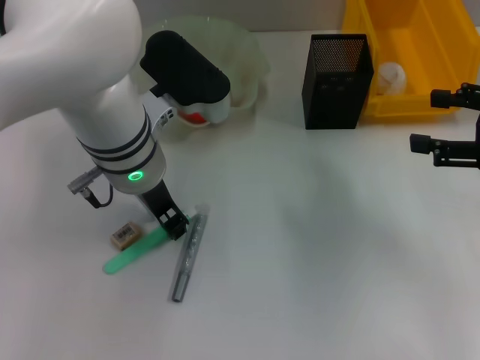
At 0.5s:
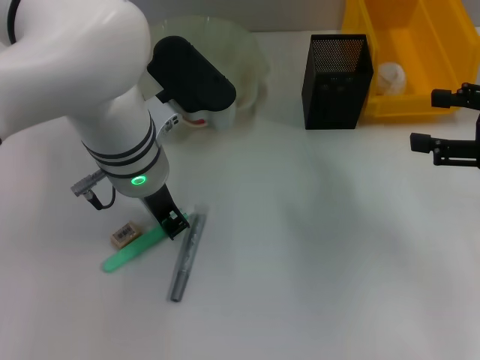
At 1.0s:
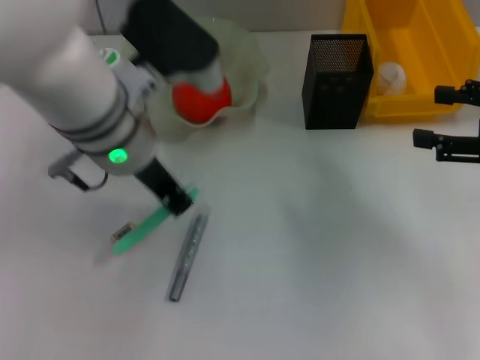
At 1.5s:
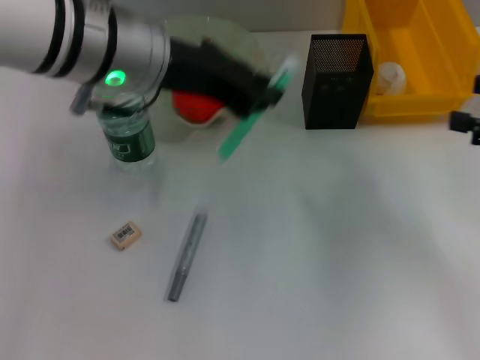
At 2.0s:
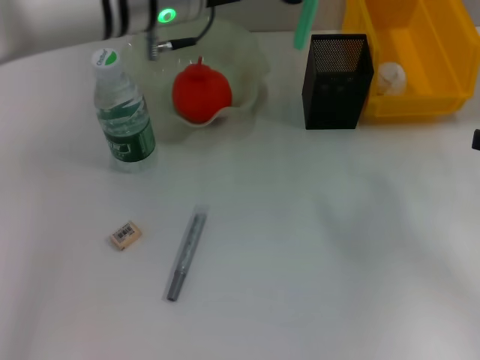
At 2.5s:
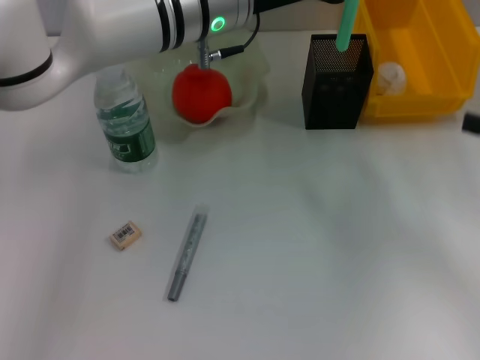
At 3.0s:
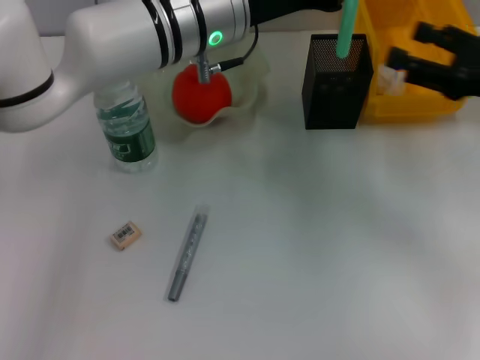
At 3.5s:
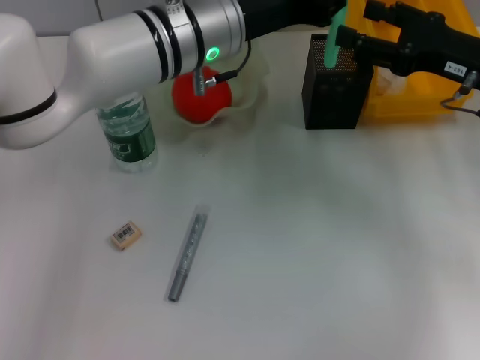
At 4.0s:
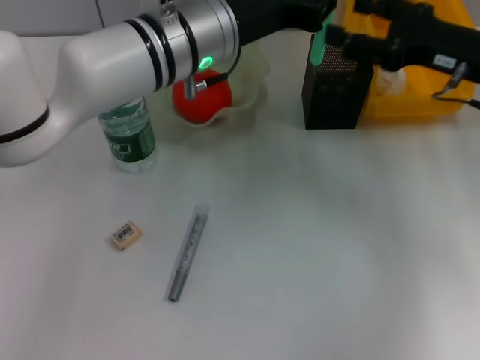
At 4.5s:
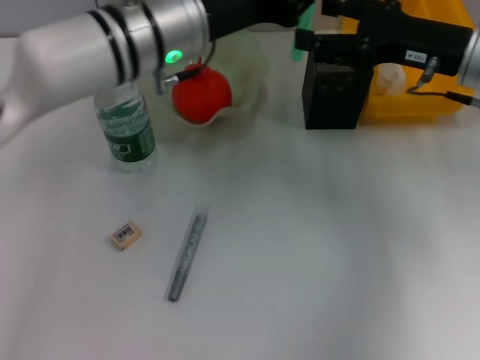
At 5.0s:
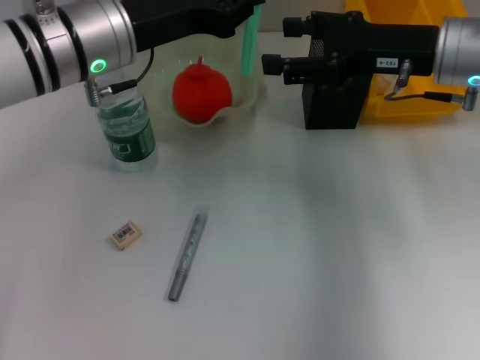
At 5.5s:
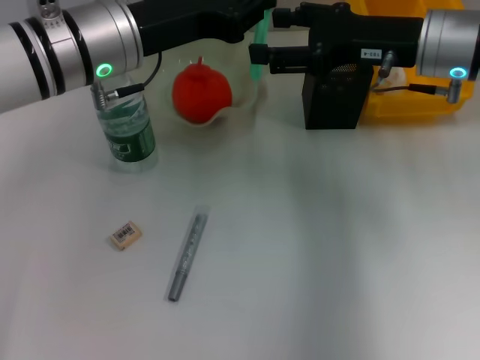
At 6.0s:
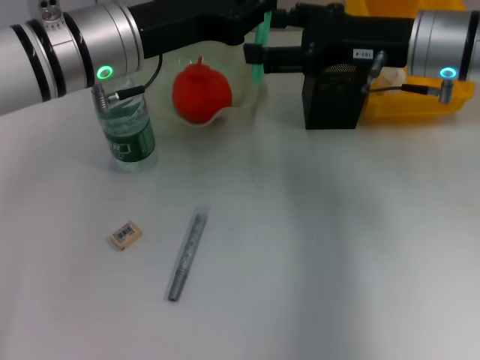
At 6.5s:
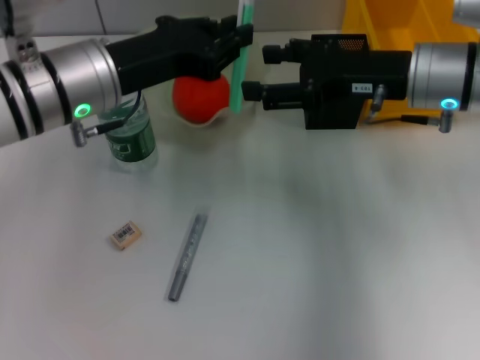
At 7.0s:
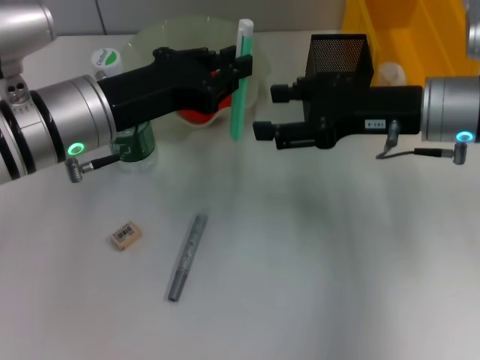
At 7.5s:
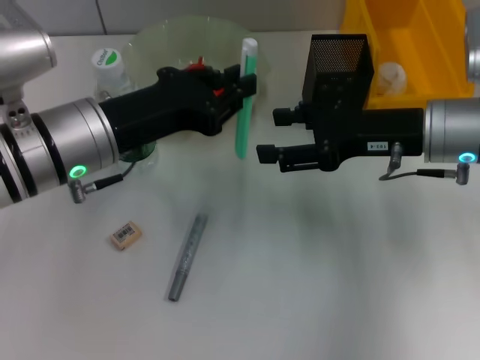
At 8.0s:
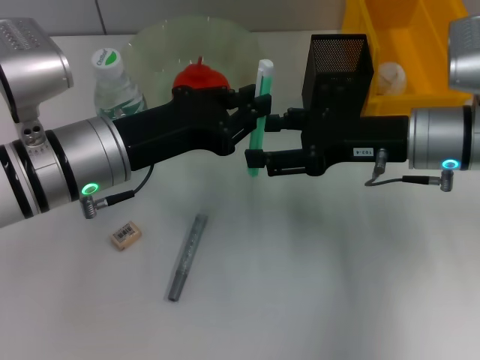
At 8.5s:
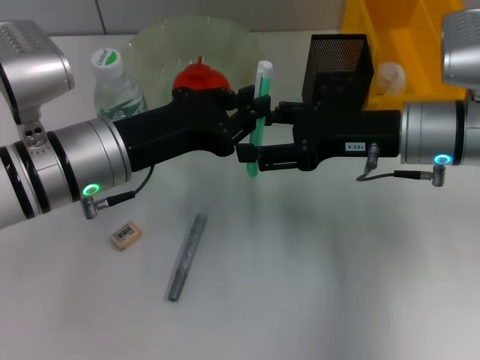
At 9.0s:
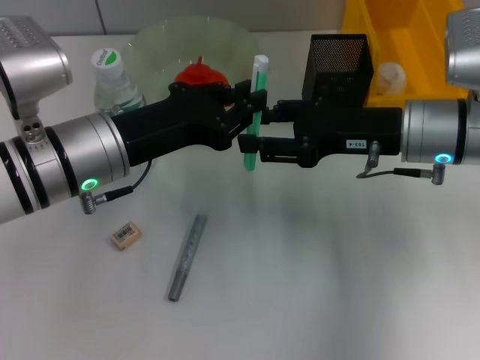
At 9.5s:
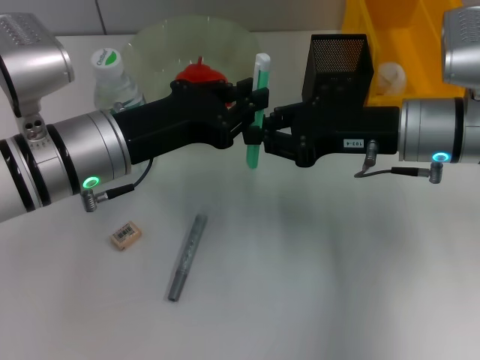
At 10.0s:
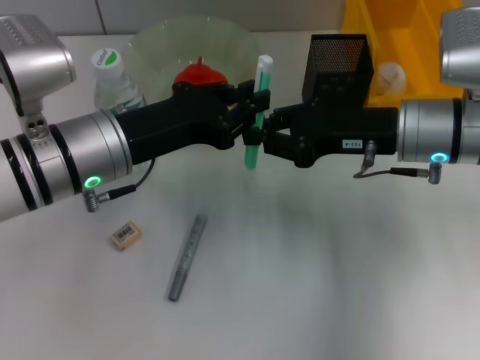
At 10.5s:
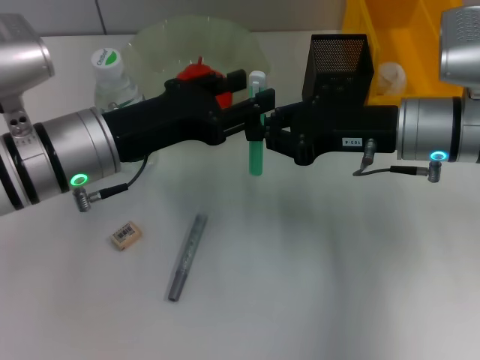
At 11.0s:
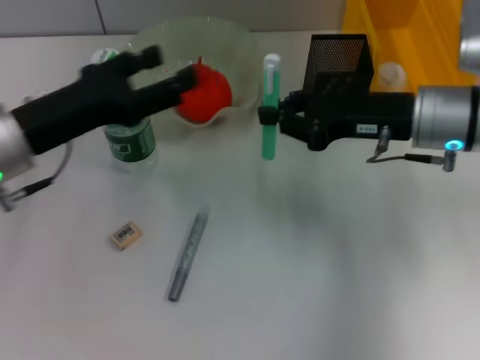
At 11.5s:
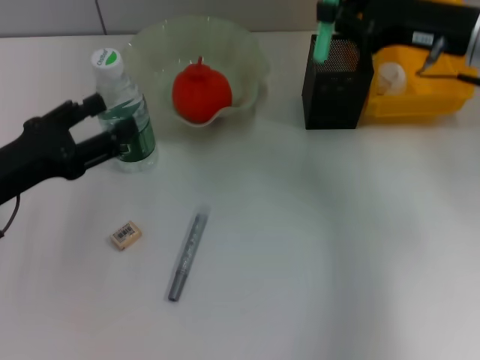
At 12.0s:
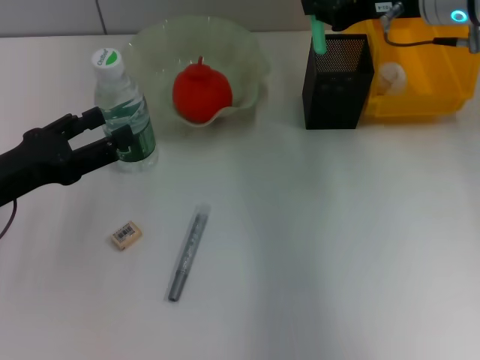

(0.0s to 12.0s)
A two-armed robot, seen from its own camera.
Step, 1.0s - 10.5s: Pass the blue utility knife from the left hand to the right hand.
0.0s - 2.0s: The left gripper heads upward and forward, covering approximately 10 cm. Meanwhile the right gripper moves roughly 5 cm.
2.0s - 4.0s: The left gripper shifts by approximately 5 cm. Meanwhile the right gripper goes roughly 15 cm to the left and forward.
4.0s - 6.0s: Both grippers travel together to the left, roughly 5 cm.
6.0s - 8.0s: The left gripper goes approximately 5 cm backward; the right gripper goes approximately 5 cm downward and backward.
8.0s - 10.0s: The right gripper closes up.
10.0s - 12.0s: The left gripper heads to the left, covering about 15 cm, and opens, while the right gripper shifts about 10 cm forward and upward.

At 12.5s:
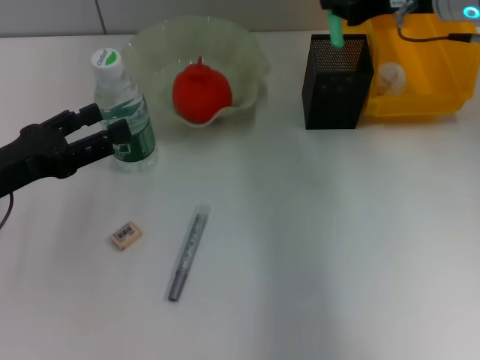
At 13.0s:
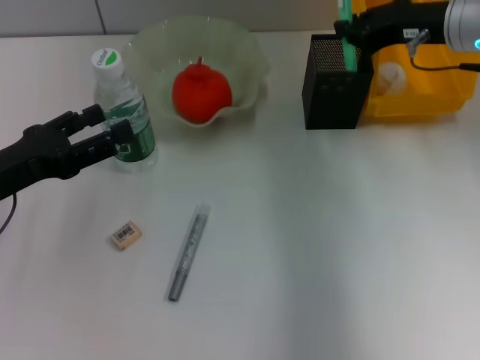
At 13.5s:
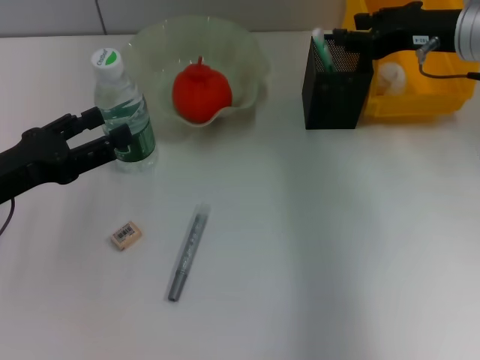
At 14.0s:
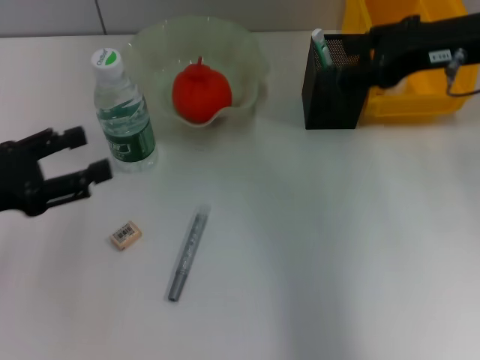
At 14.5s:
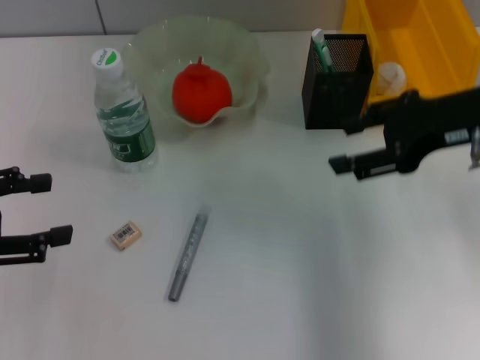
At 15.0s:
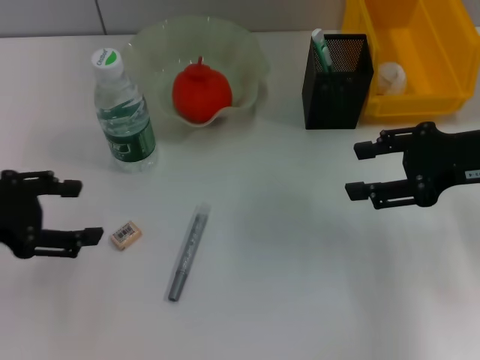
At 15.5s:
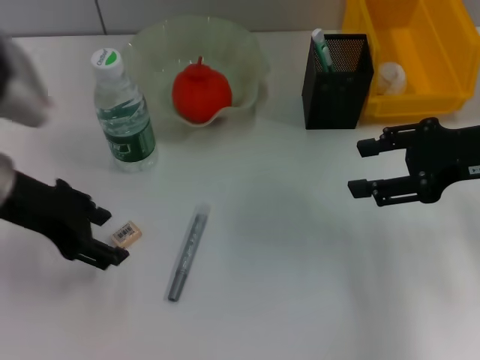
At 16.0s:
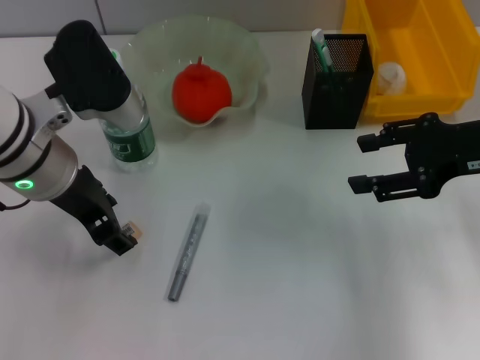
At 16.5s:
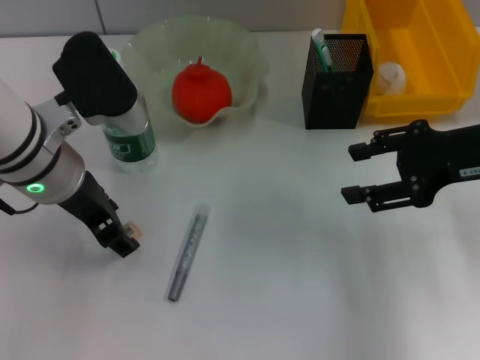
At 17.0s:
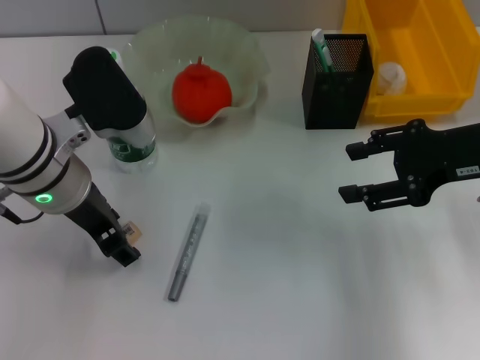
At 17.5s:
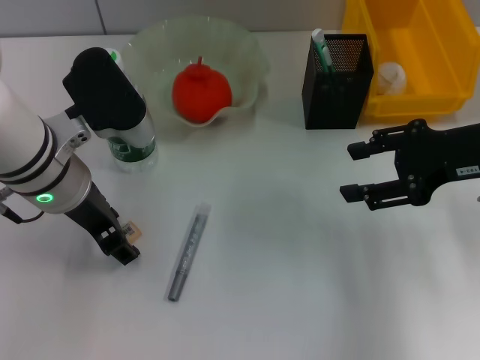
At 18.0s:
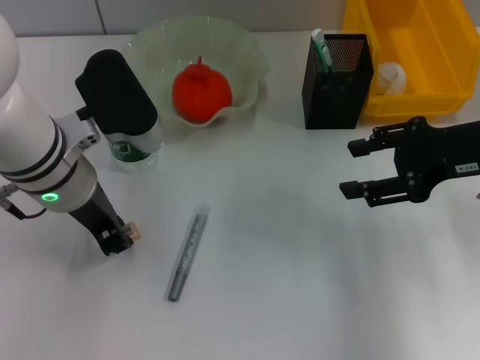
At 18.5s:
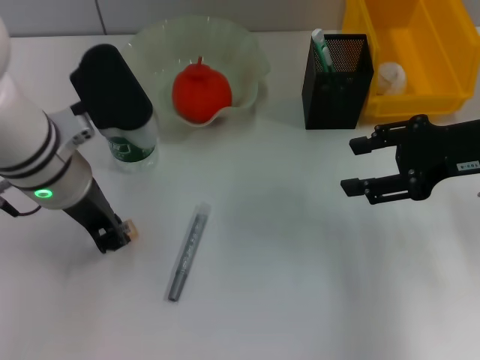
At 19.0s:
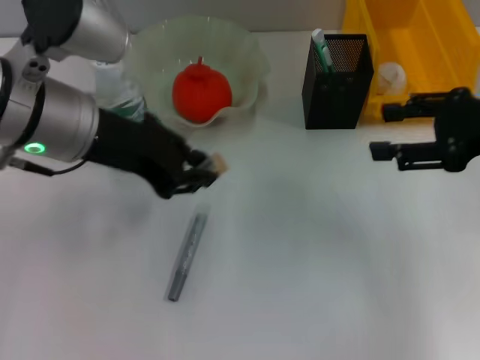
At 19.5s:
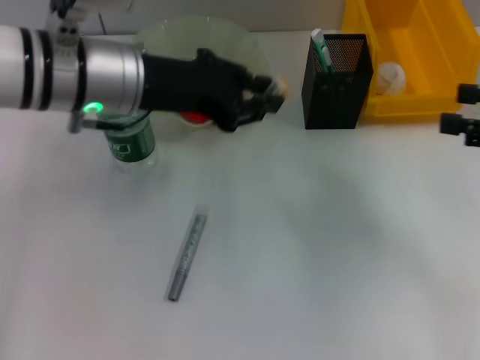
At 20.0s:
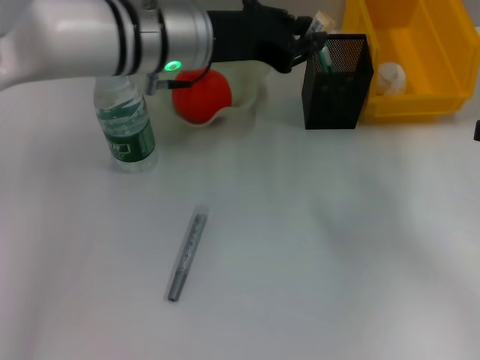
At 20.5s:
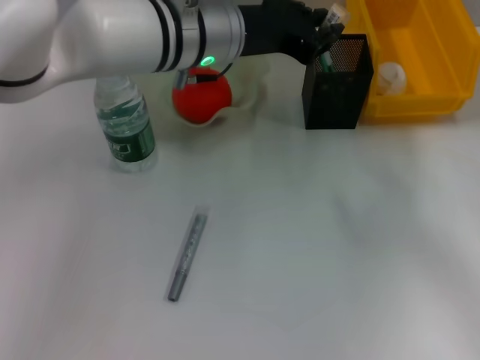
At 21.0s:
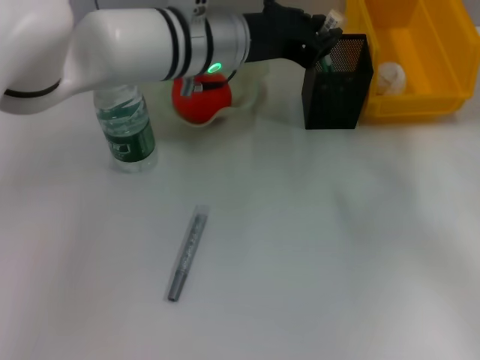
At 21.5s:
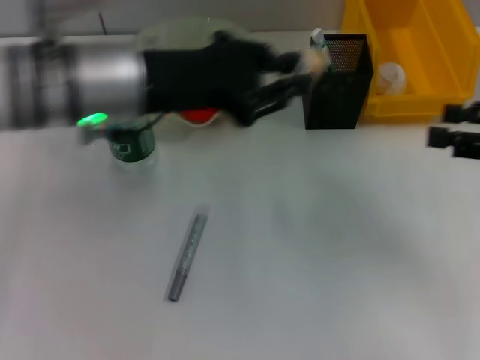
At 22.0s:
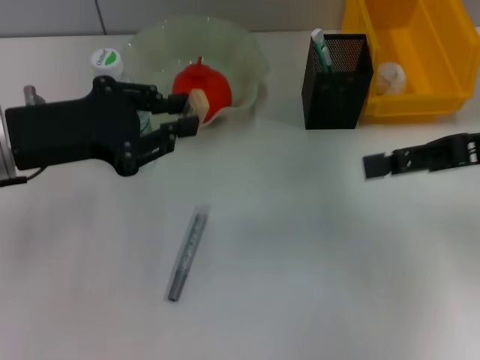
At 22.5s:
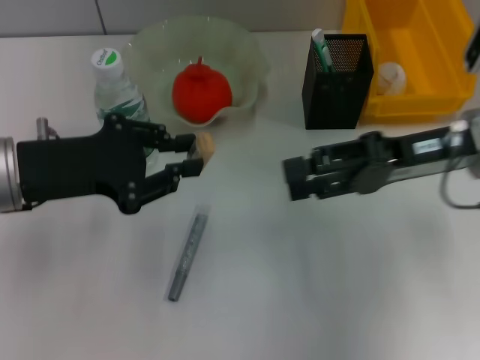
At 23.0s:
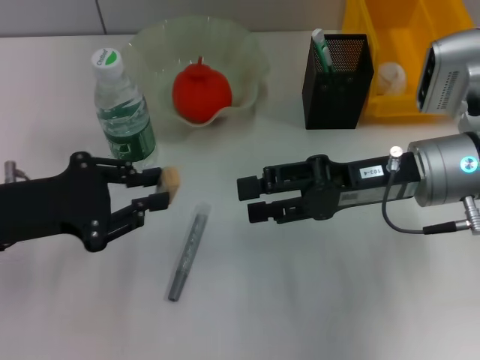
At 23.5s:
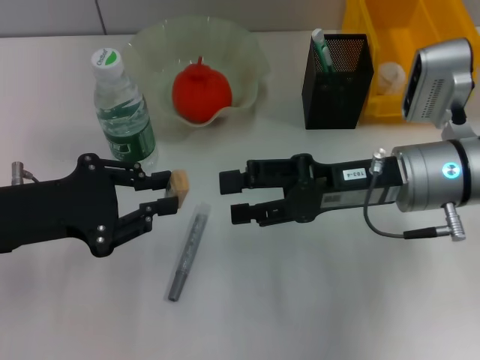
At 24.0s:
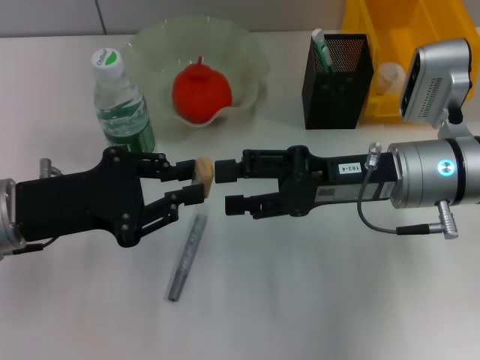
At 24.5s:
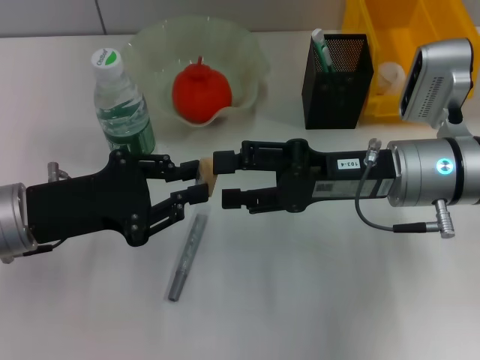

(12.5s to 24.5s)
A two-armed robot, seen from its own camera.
Step, 14.0s - 18.0s: Grab the eraser with the left hand.
12.5s - 14.5s: The right gripper shifts approximately 10 cm backward, and opens its fingers. Meanwhile the left gripper is displaced upward and to the left by some 5 cm.
14.5s - 16.5s: The left gripper goes some 20 cm to the right and forward.
16.5s - 18.5s: The left gripper closes its fingers.
18.5s - 20.5s: The left gripper is displaced to the right and forward by roughly 15 cm, while the right gripper travels to the right and backward by some 15 cm.
20.5s - 22.5s: The left gripper is displaced to the left and backward by approximately 20 cm; the right gripper goes approximately 15 cm to the left and forward.
22.5s - 24.5s: The right gripper goes some 5 cm to the left.

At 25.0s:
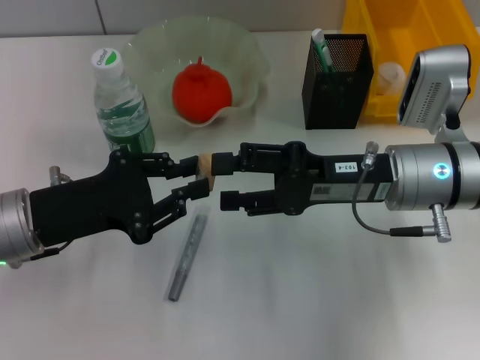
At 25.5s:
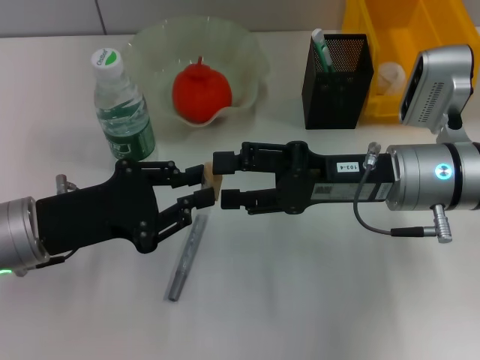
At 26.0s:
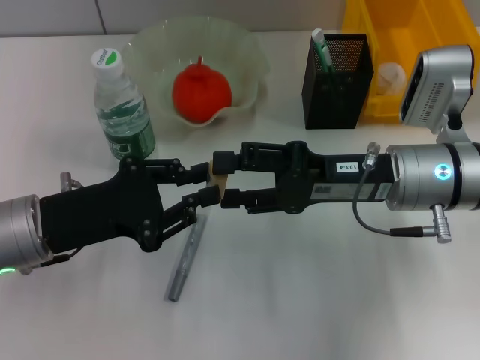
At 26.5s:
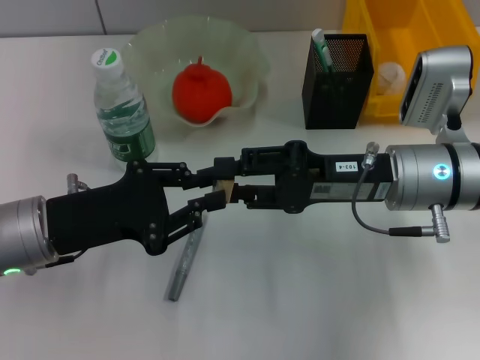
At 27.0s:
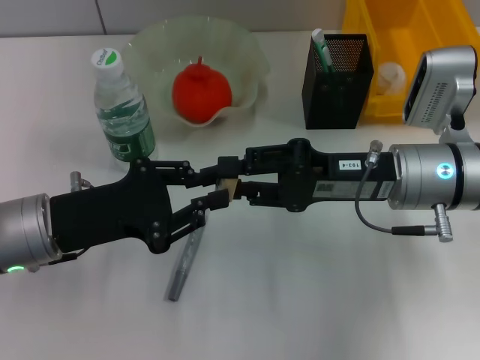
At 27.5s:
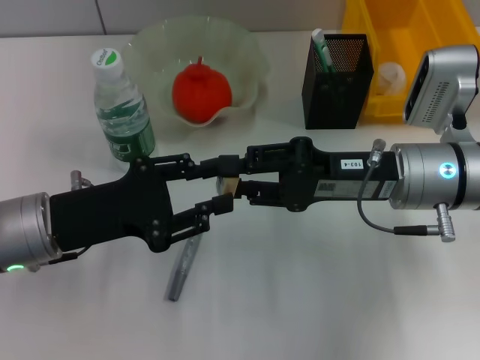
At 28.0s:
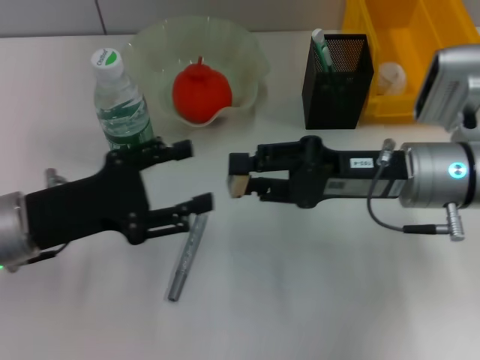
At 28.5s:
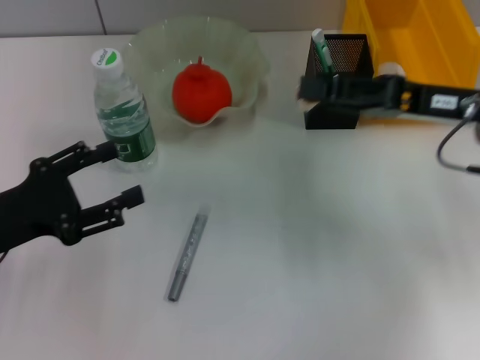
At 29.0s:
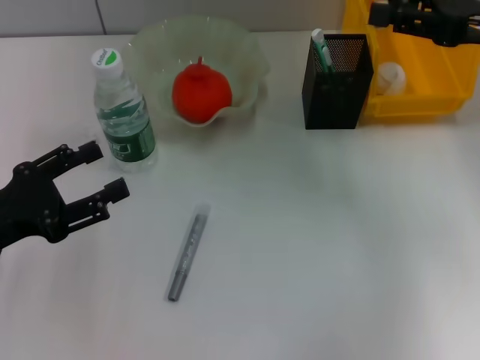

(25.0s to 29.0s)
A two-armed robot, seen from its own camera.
Step, 25.0s - 27.5s: Pass the eraser from the left hand to the right hand.
25.0s - 27.0s: The right gripper closes.
27.0s - 29.0s: The left gripper is displaced to the left by roughly 10 cm, and opens its fingers. Meanwhile the right gripper is displaced to the right and upward by roughly 15 cm.
